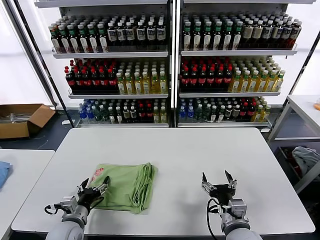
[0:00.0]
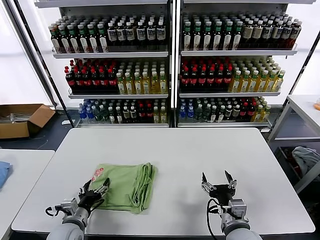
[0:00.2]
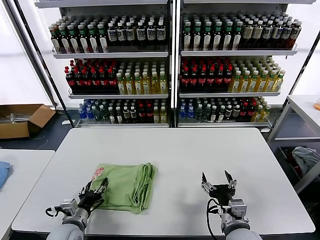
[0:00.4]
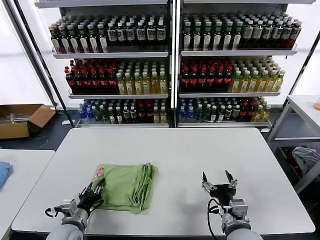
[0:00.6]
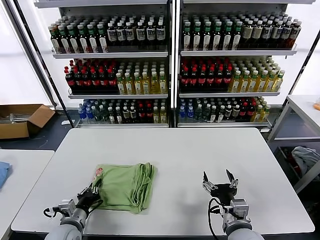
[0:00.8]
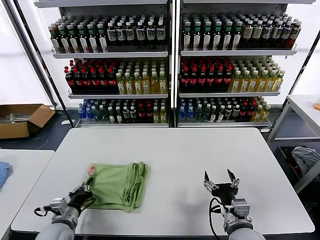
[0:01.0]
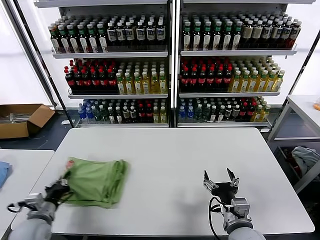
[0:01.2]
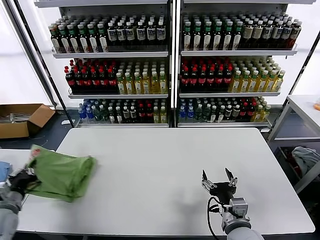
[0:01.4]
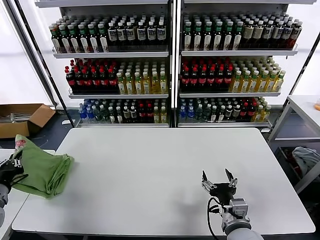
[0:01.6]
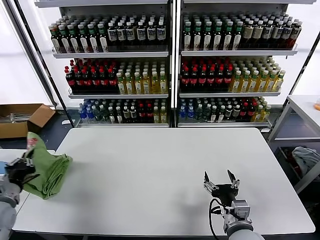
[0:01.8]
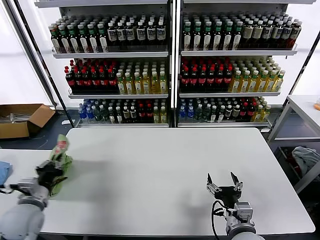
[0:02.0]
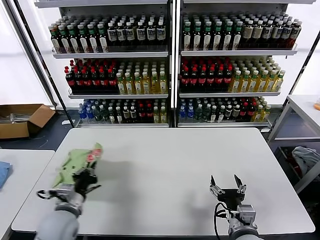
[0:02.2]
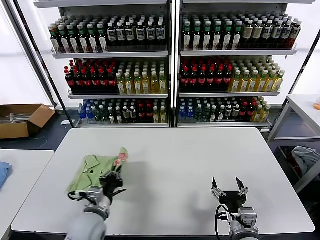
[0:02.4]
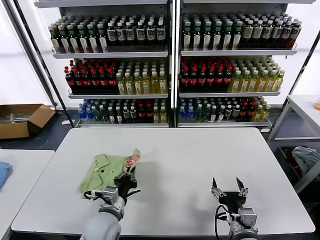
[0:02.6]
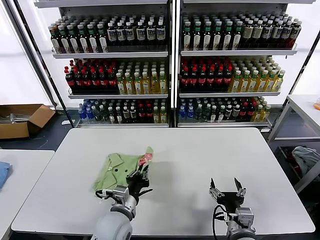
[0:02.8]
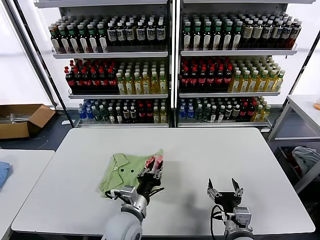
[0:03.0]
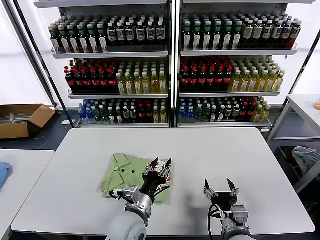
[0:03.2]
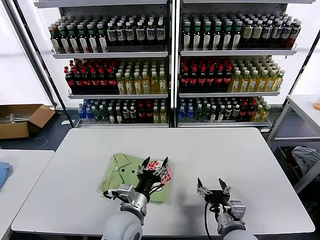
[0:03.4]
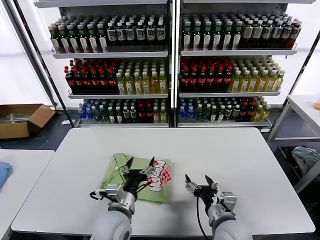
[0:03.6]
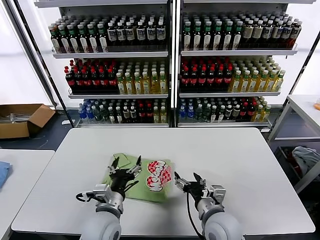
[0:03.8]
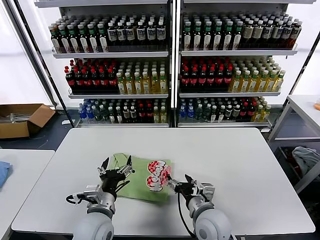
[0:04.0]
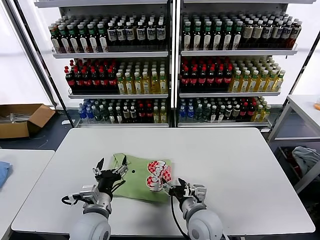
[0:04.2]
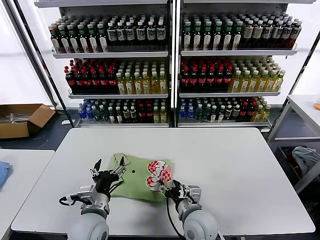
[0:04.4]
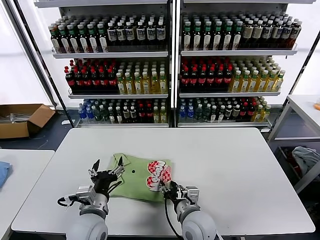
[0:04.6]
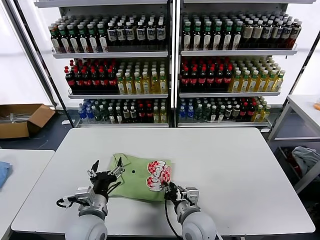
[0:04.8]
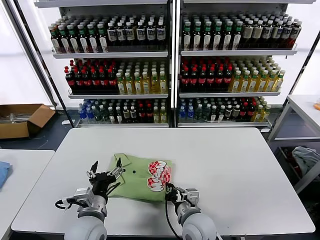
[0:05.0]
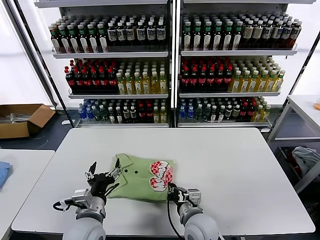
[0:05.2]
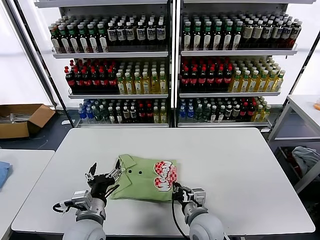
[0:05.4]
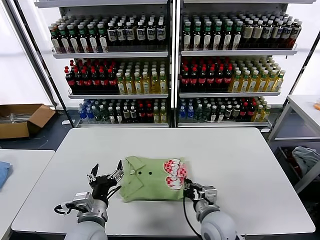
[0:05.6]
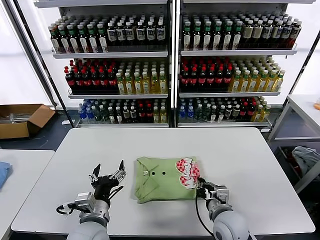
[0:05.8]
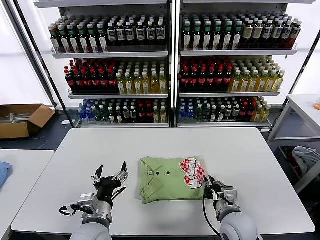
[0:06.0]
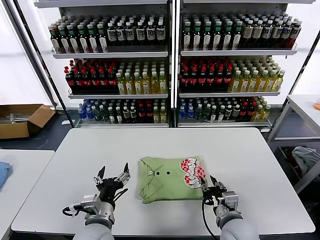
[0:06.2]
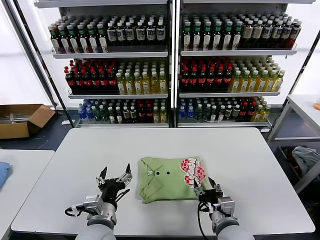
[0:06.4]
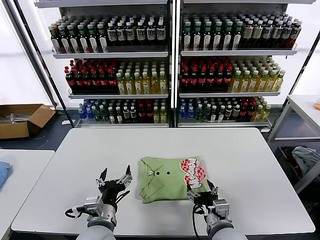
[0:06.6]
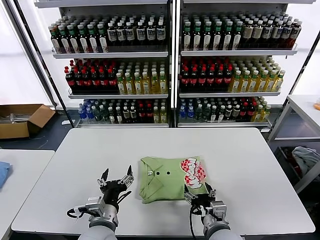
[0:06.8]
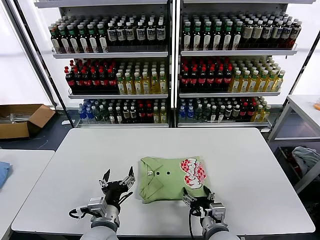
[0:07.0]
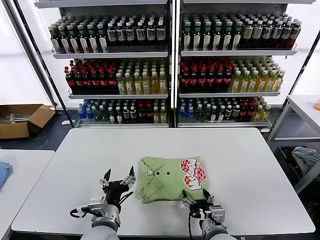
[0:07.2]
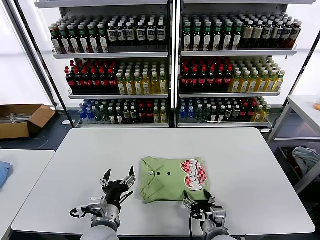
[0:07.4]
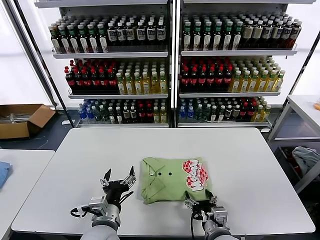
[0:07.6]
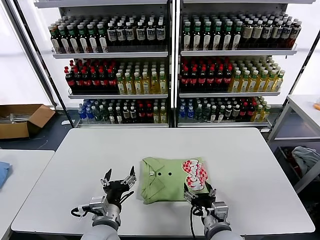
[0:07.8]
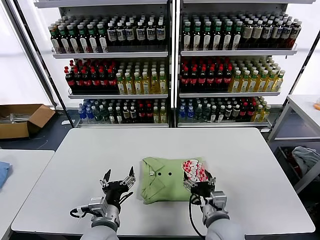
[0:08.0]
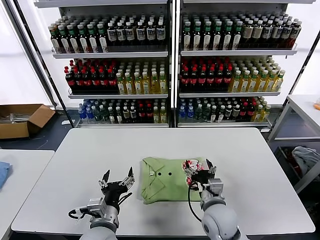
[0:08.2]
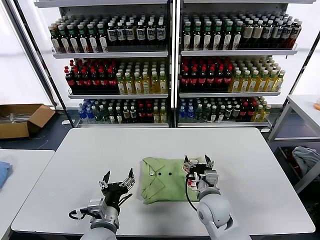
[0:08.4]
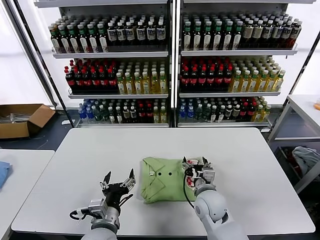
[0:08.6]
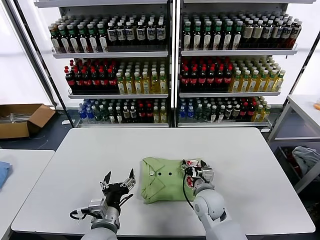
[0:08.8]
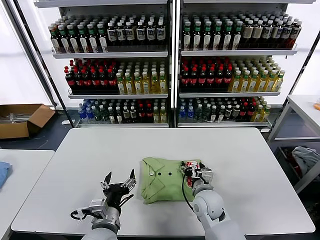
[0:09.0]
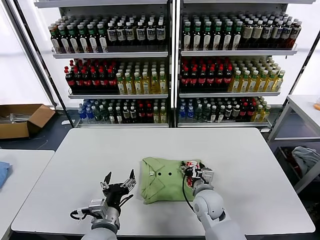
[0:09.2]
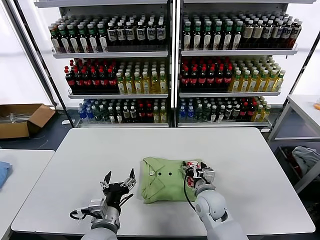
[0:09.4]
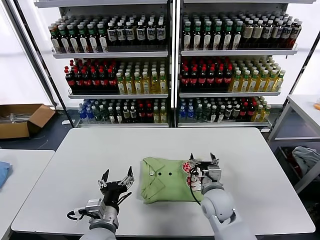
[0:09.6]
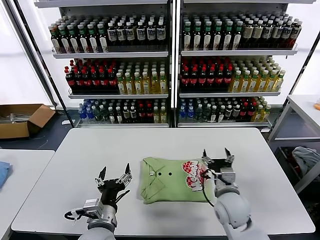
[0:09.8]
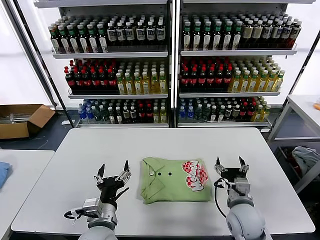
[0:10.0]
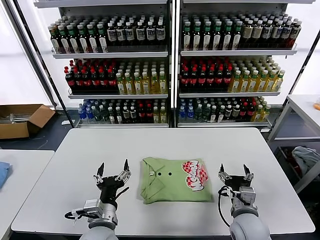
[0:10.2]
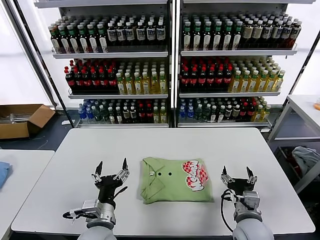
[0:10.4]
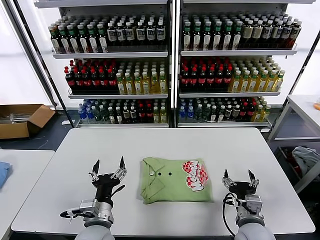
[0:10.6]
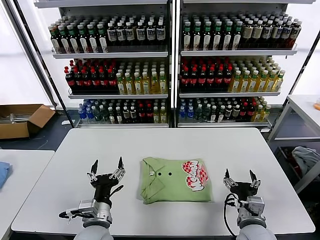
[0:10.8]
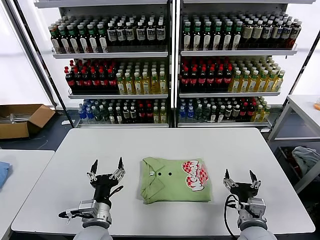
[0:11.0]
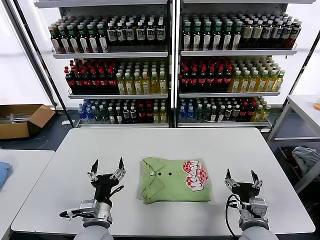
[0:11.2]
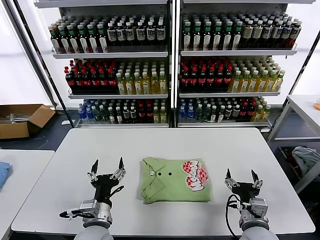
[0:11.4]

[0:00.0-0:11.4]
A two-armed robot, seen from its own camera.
Task of the whole recording: fold and organize the clothes.
Step, 0:00.0 to 0:03.0: Flip the folded clothes over with left gripper.
Step, 0:03.2 to 0:09.6: Drag the clothes to the center of the table.
0:00.0 to 0:01.4: The left gripper travels to the left and upward by some 20 cm, and closes.
0:01.4 to 0:02.8: The left gripper heads to the right, covering about 30 cm.
0:02.8 to 0:04.2: The left gripper moves approximately 5 cm, and opens up, while the right gripper goes approximately 10 cm to the left and forward.
0:04.2 to 0:05.6: The right gripper closes up.
0:05.6 to 0:07.2: The right gripper is displaced backward by approximately 5 cm, and opens.
0:07.2 to 0:08.6: The right gripper shifts approximately 10 cm forward.
0:08.6 to 0:10.0: The right gripper travels to the right by about 10 cm.
0:10.0 to 0:11.4: The right gripper moves backward, approximately 5 cm.

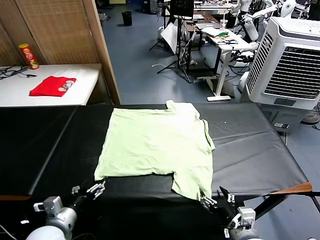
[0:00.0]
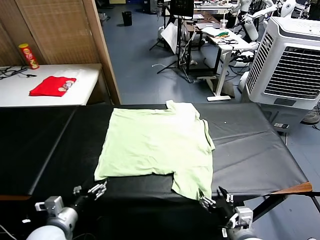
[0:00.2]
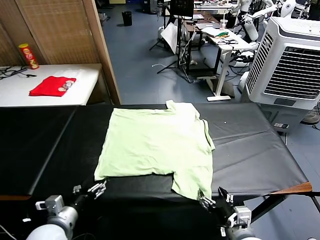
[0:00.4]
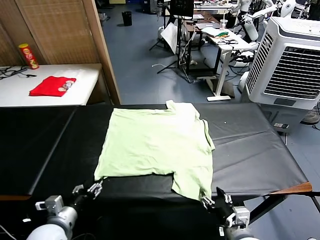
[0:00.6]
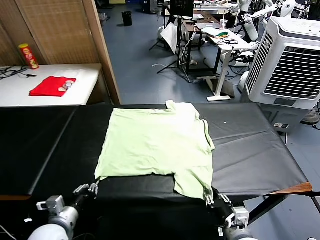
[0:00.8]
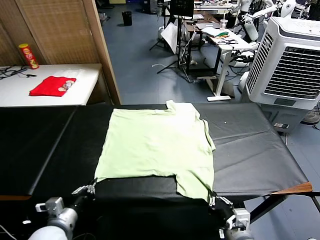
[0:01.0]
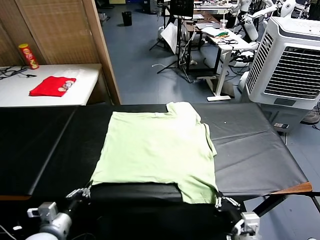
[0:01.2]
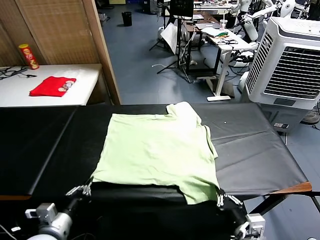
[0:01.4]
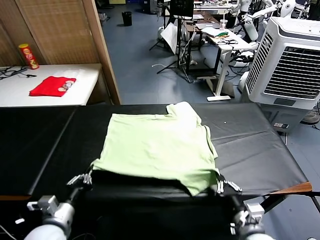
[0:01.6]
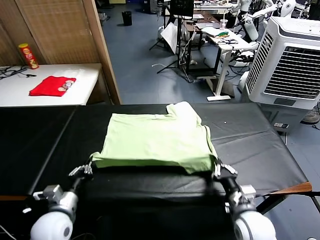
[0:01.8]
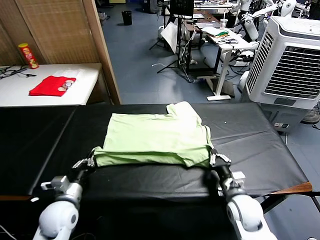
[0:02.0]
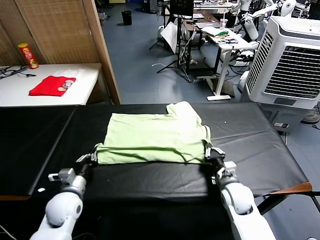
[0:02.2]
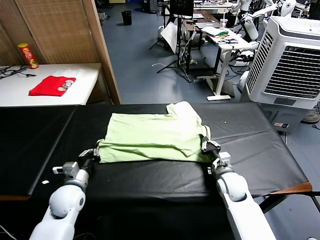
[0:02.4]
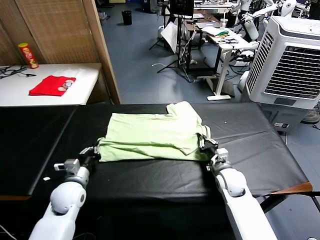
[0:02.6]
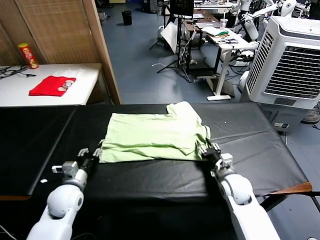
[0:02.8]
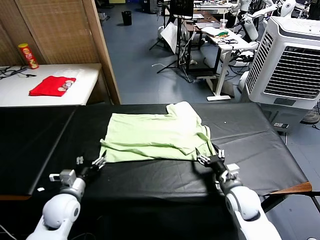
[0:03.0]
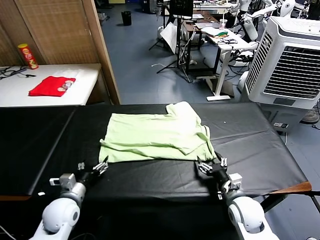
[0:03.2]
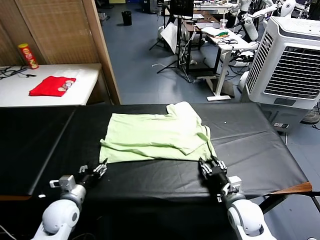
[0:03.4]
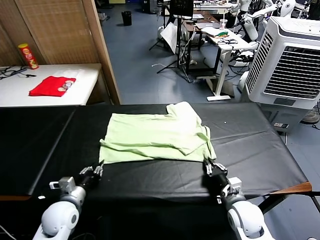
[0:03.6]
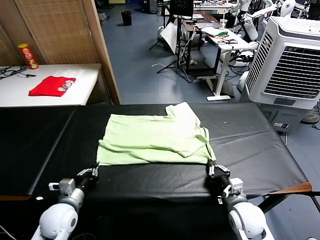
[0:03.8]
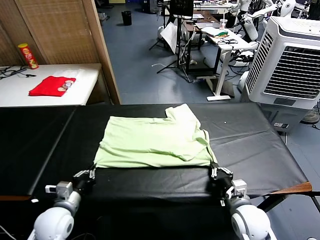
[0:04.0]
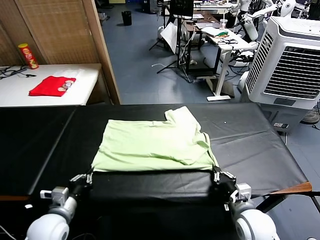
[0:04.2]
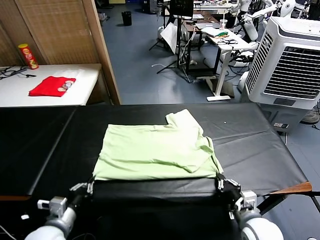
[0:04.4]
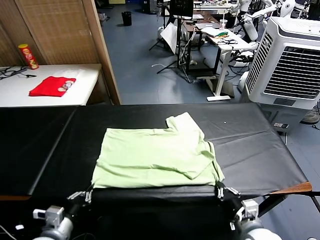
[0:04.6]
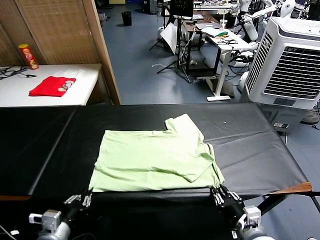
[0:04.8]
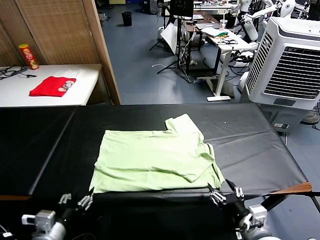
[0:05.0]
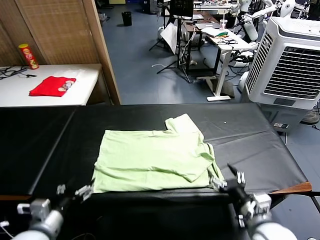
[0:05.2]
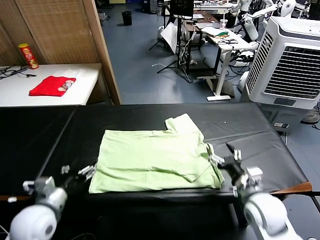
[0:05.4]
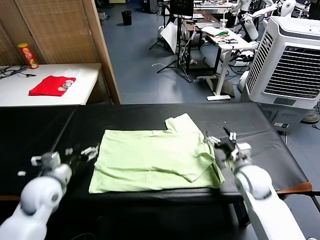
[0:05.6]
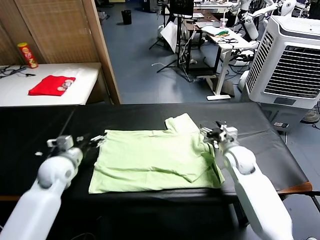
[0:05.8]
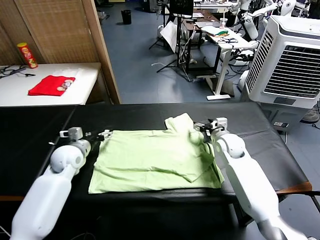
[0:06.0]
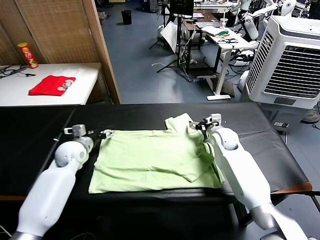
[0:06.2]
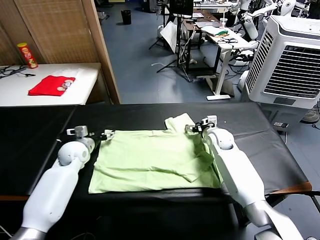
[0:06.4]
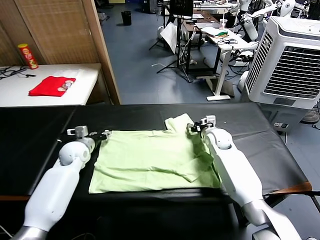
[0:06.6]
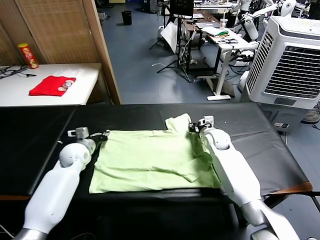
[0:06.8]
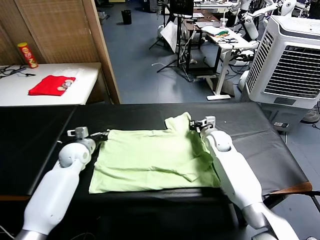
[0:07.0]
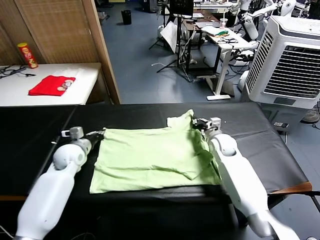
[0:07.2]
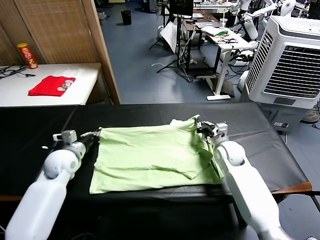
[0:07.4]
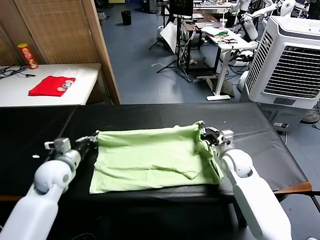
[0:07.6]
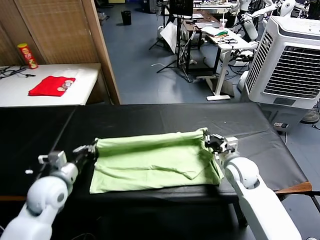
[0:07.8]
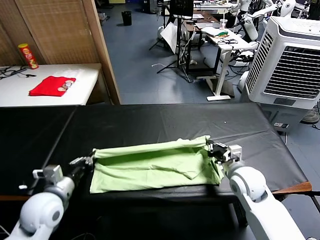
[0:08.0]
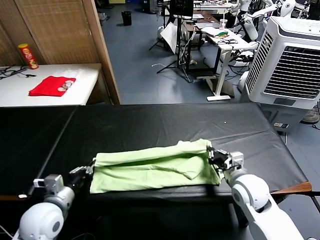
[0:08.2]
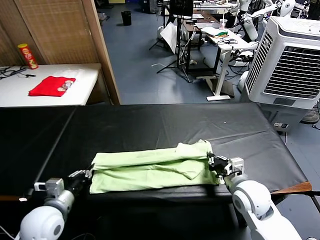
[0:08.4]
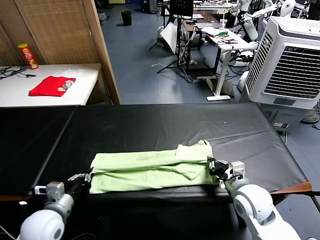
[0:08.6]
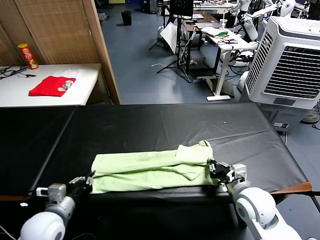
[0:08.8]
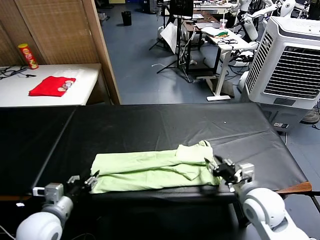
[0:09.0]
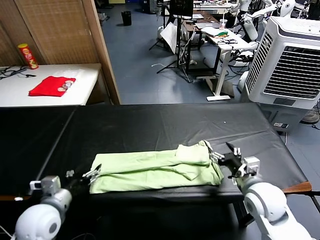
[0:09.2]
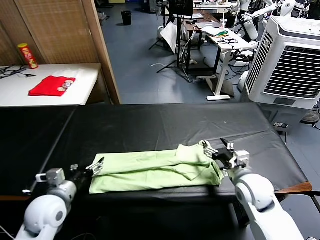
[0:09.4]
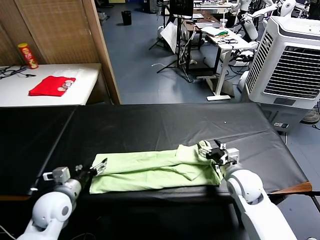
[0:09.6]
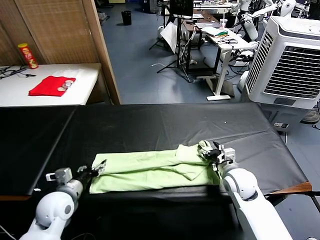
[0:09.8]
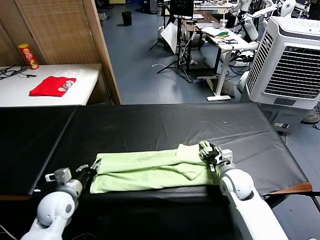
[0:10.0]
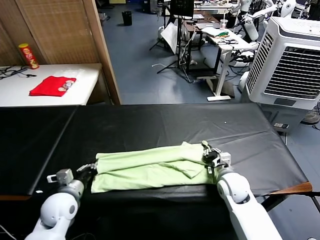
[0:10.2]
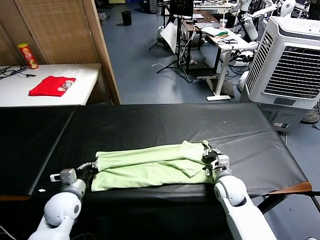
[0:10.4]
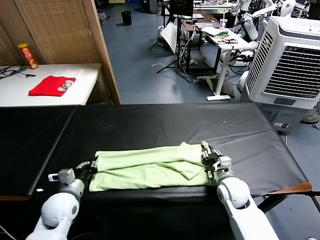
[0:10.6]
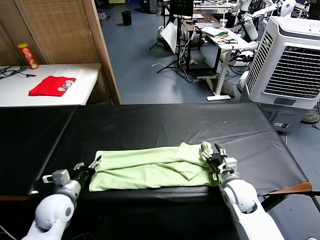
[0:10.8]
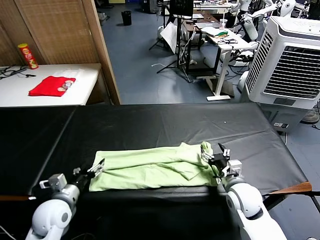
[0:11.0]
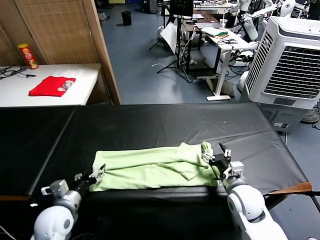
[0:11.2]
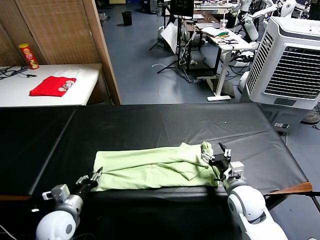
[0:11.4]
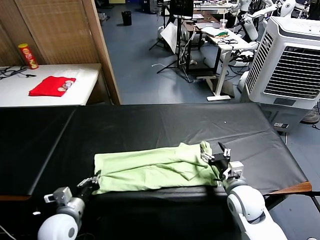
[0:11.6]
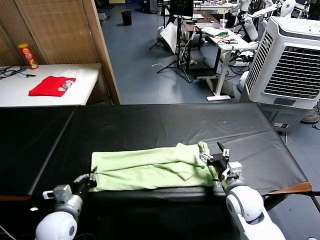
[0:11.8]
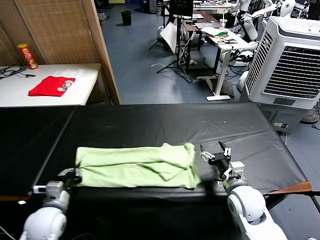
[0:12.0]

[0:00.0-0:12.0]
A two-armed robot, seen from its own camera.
Task of the whole recording: fold and organize the clothes.
Step, 0:00.0 to 0:01.0: use both grippers simultaneously to clamp the lower edge of the clothing fabric.
Step, 0:01.2 to 0:02.8: use both grippers to drag the lower edge of the fabric forward and fold it over the upper edge.
Step, 0:03.0 to 0:05.0: Drag the clothes downward with both gripper.
Step, 0:05.2 to 0:06.8: use both grippers simultaneously to clamp the upper edge of the clothing fabric.
Step, 0:07.0 to 0:09.0: use both grippers to drag the upper edge of the fabric backward and fold it over the lower edge.
Step, 0:09.2 to 0:11.4: use the left gripper to clamp the left edge of the fabric.
0:01.6 to 0:03.0: The two grippers go some 5 cm forward. The right gripper opens up, while the left gripper opens up.
0:03.0 to 0:04.4: Both grippers travel together backward, approximately 10 cm. The left gripper closes, while the right gripper closes up.
0:04.4 to 0:06.0: The two grippers go about 30 cm forward. The right gripper opens its fingers. Meanwhile the left gripper opens its fingers.
0:06.0 to 0:07.6: The two grippers go about 10 cm backward. The left gripper closes. Meanwhile the right gripper closes its fingers.
0:07.6 to 0:09.0: The two grippers go roughly 15 cm backward. The right gripper opens its fingers; the left gripper opens its fingers.
0:09.0 to 0:10.4: The left gripper moves forward and downward, roughly 10 cm, and closes. The right gripper is displaced downward and forward by approximately 15 cm, and closes its fingers.
0:10.4 to 0:12.0: The right gripper goes about 10 cm backward and upward, and opens. Meanwhile the left gripper ends up some 5 cm from where it was, and opens and closes again.
